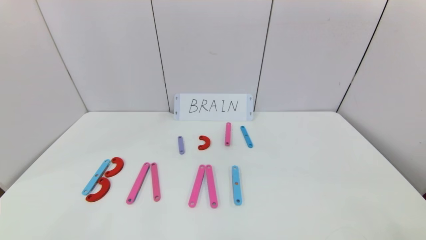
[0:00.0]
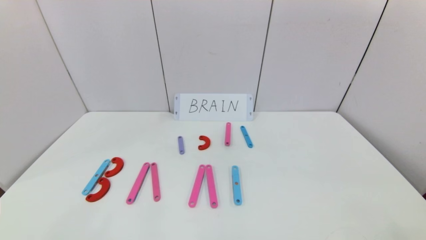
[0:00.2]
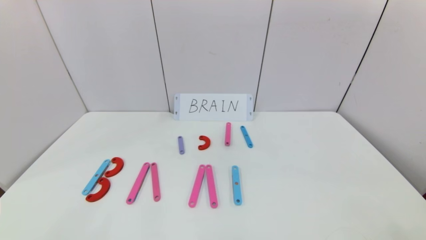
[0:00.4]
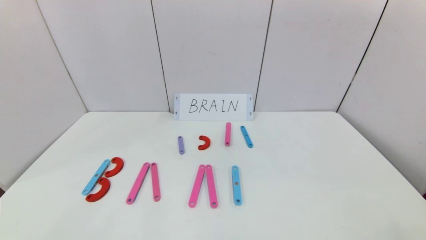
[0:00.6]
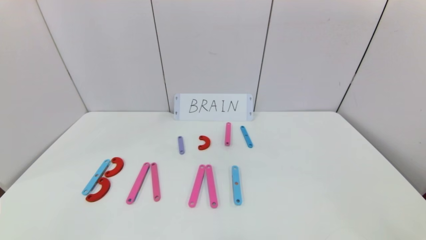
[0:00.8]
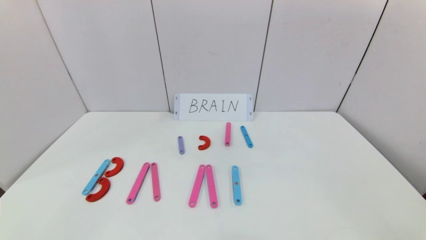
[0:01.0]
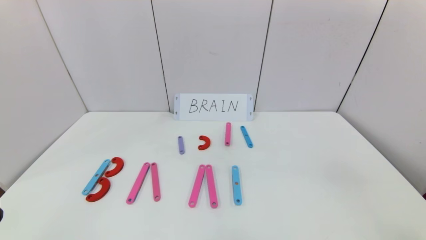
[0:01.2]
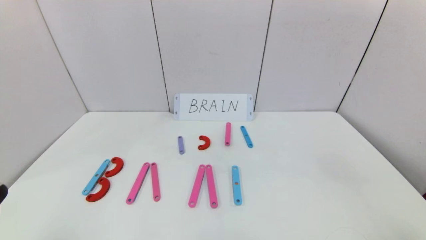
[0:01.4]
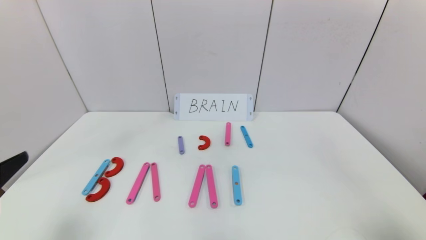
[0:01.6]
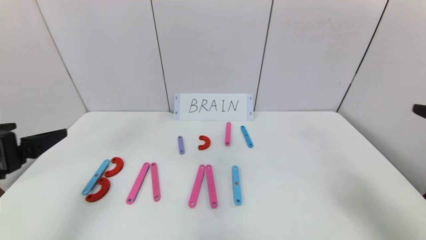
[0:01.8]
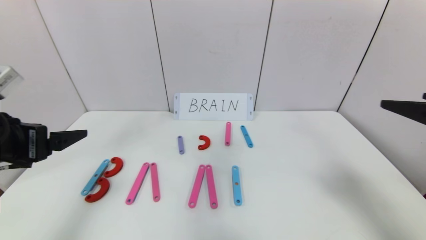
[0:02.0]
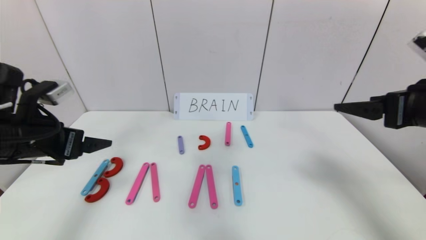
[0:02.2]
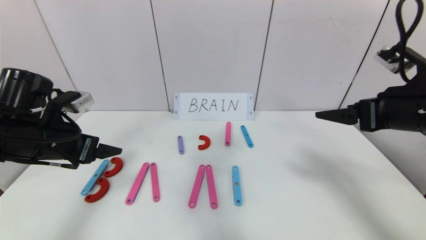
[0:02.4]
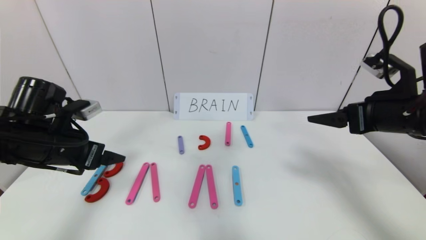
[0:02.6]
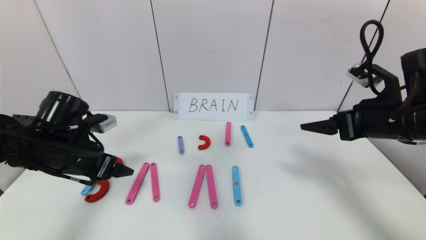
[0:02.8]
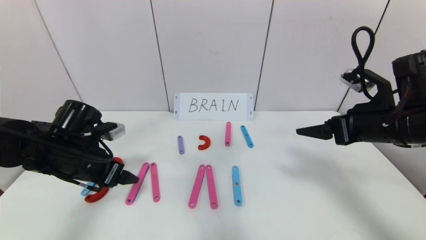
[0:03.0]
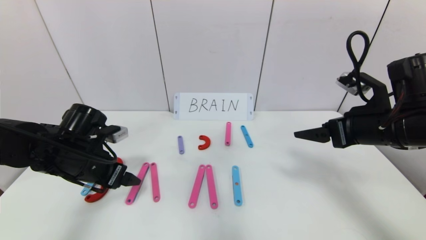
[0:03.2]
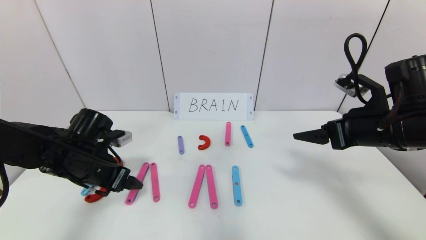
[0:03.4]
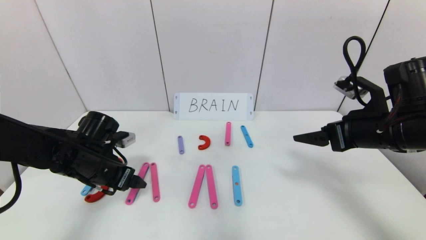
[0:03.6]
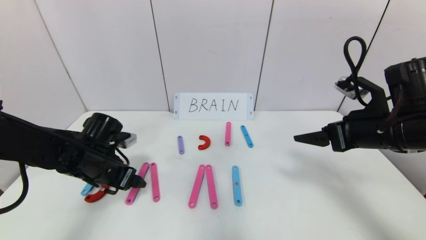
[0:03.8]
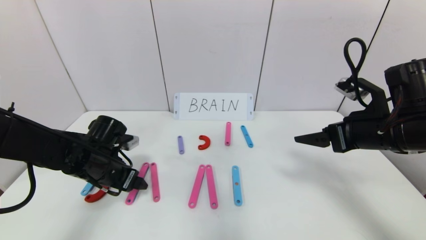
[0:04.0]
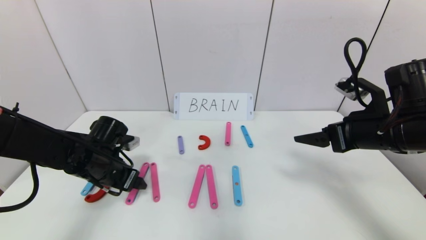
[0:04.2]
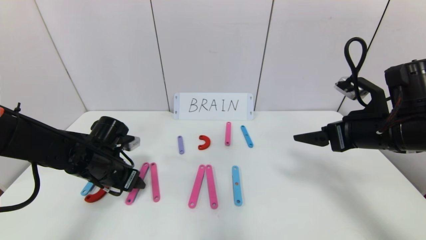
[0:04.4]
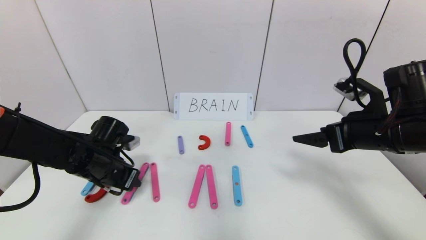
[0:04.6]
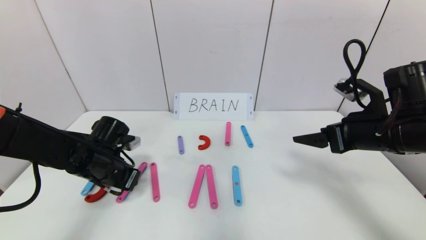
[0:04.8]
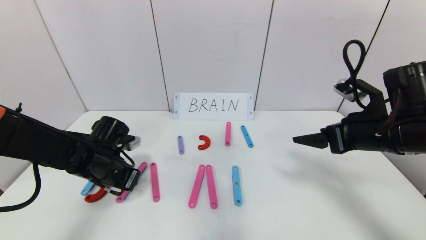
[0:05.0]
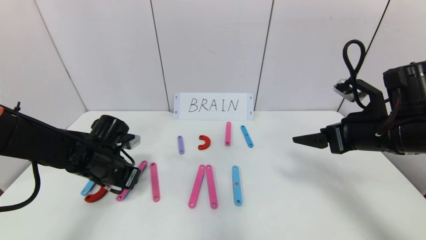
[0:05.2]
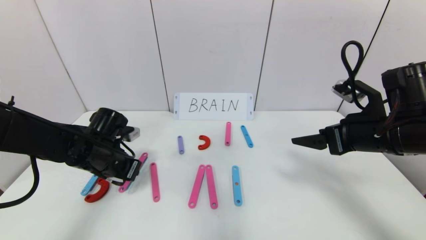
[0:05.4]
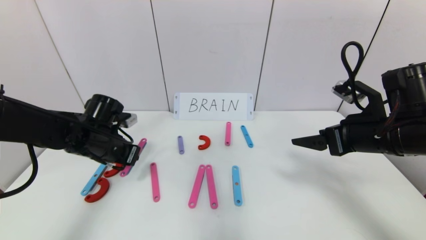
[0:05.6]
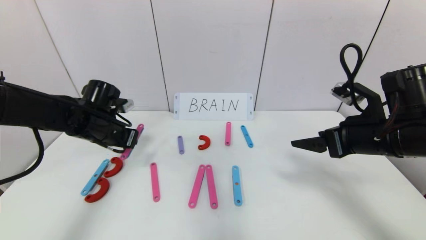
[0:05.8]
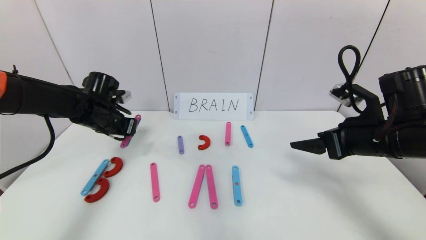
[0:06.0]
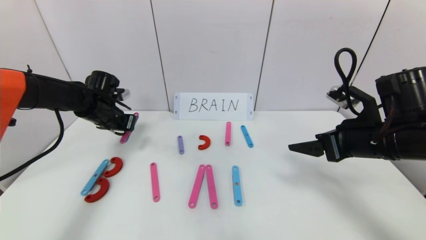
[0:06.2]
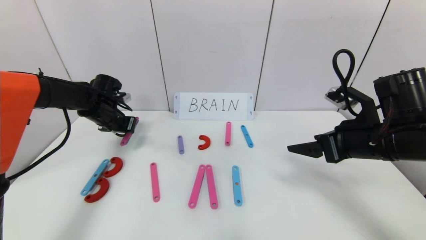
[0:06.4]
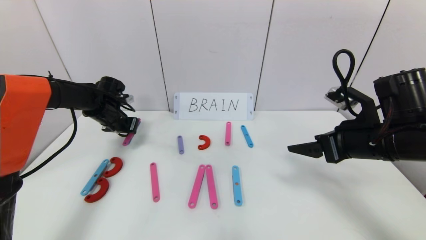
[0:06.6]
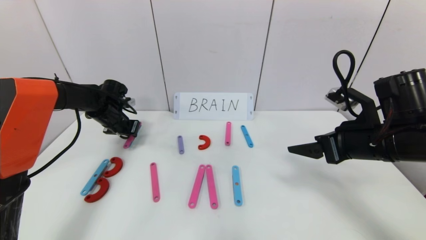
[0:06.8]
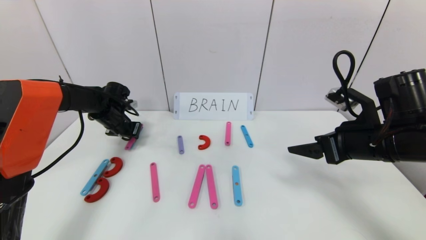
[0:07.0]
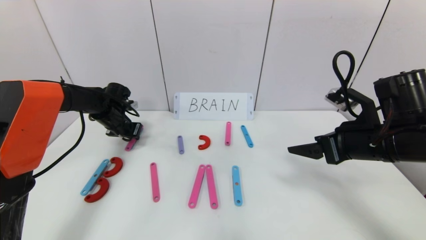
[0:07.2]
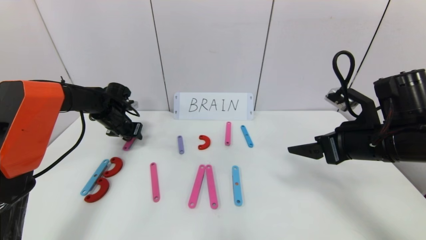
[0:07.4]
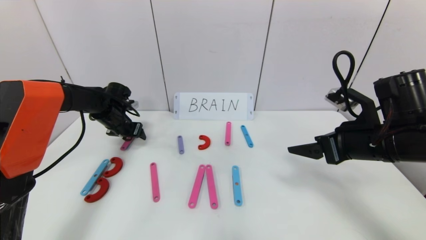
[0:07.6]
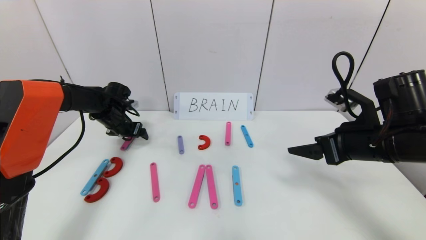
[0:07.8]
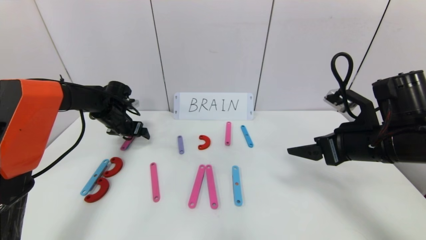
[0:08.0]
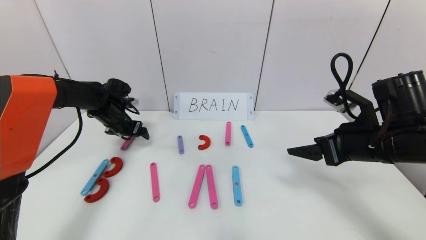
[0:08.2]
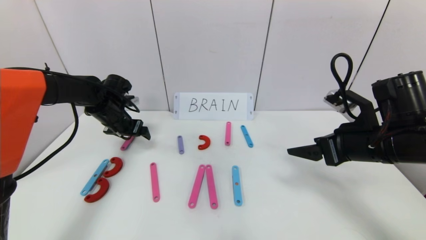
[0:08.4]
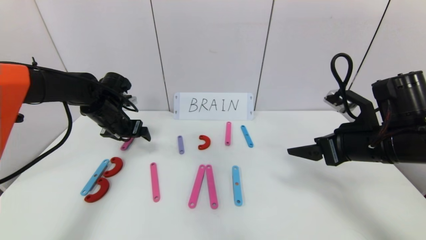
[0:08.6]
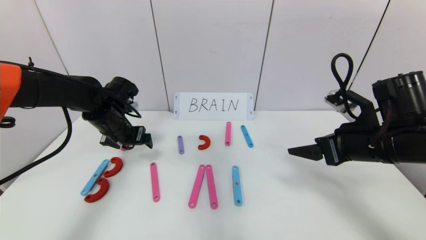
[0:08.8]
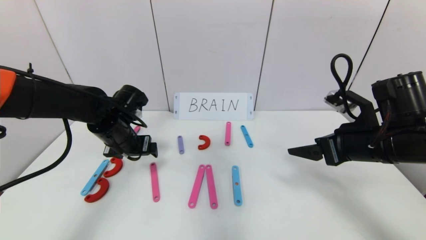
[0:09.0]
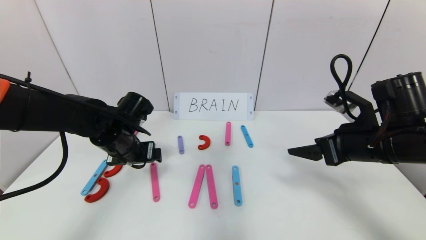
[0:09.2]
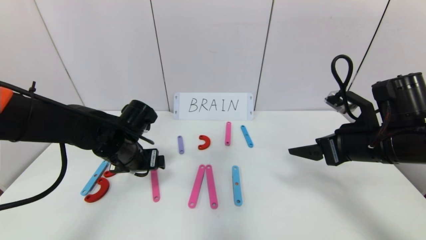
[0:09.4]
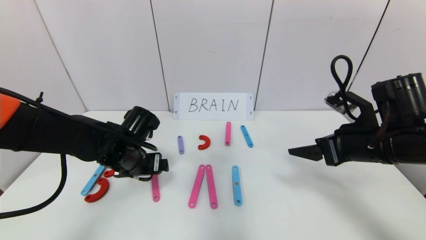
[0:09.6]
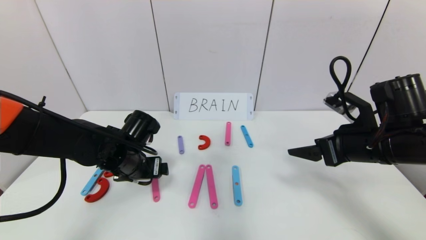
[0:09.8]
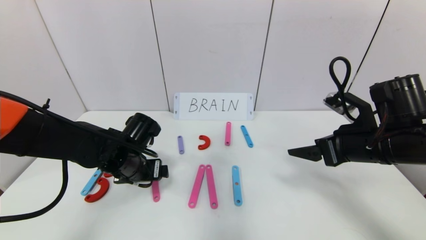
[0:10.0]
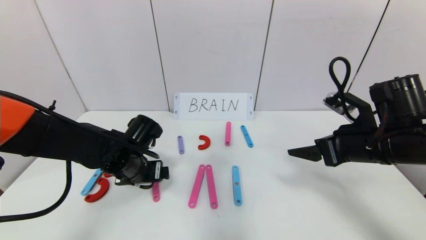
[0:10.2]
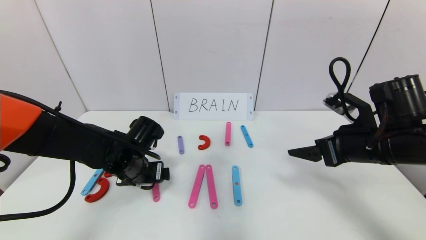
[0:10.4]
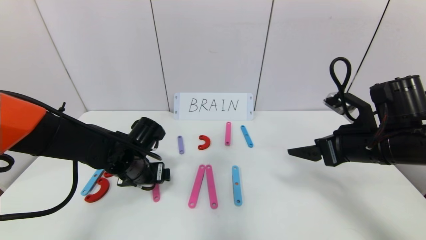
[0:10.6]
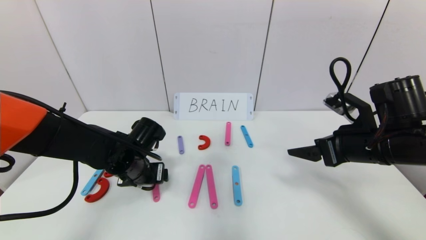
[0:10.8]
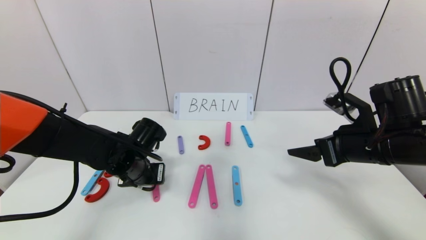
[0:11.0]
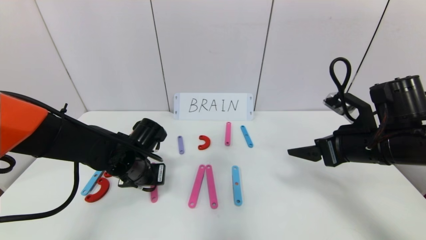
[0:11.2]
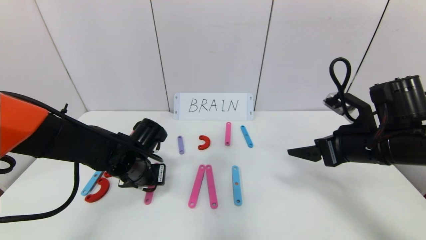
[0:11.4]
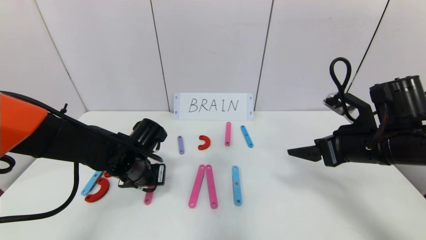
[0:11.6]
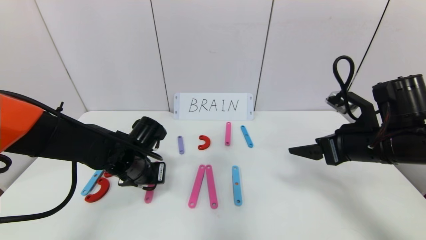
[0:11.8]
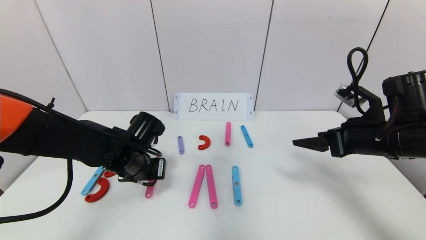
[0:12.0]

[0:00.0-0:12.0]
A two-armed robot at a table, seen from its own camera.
Task of the whole recording: rearrange the word baai as brain.
0:00.0 to 0:01.6: The left gripper shifts about 20 cm upward and forward.
0:01.6 to 0:03.0: The right gripper goes some 20 cm forward. The left gripper goes about 20 cm forward and downward.
0:03.0 to 0:04.4: The left gripper goes about 5 cm downward.
0:04.4 to 0:06.0: The left gripper travels forward and upward by about 10 cm, and closes up.
0:06.0 to 0:07.6: The left gripper travels forward by roughly 5 cm, and opens its fingers.
0:07.6 to 0:09.0: The left gripper is displaced backward and to the right by approximately 15 cm.
0:09.0 to 0:10.4: The left gripper shifts roughly 5 cm downward.
0:10.4 to 0:12.0: The left gripper closes.

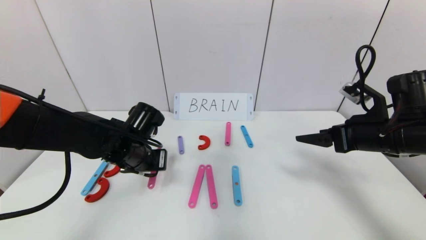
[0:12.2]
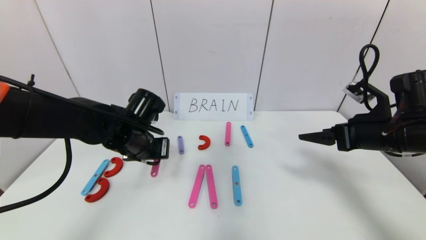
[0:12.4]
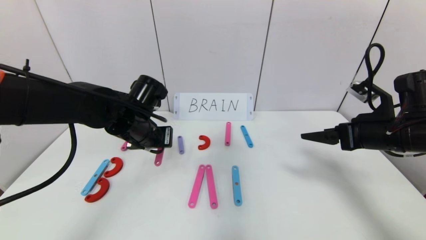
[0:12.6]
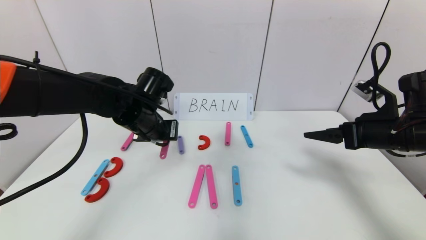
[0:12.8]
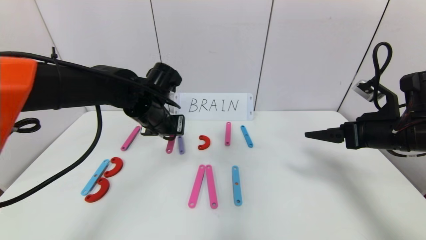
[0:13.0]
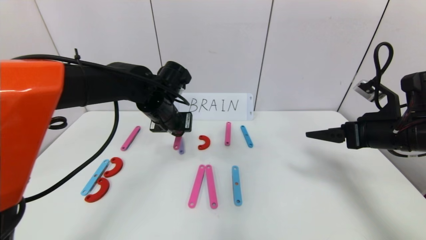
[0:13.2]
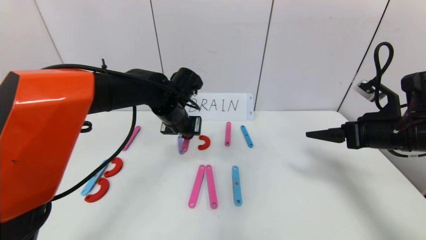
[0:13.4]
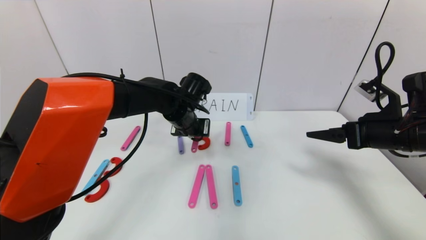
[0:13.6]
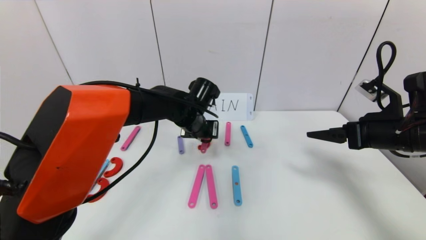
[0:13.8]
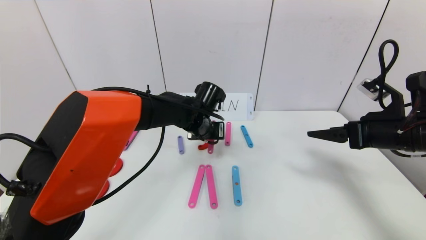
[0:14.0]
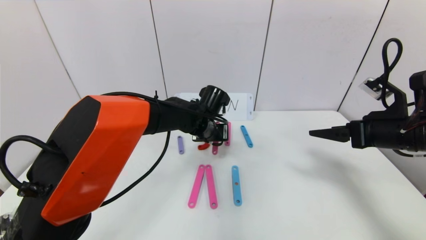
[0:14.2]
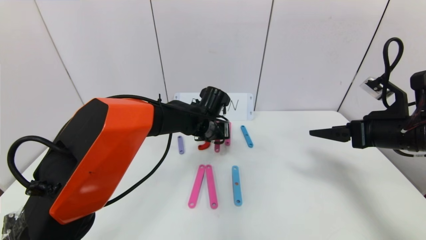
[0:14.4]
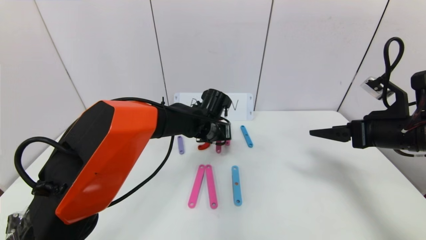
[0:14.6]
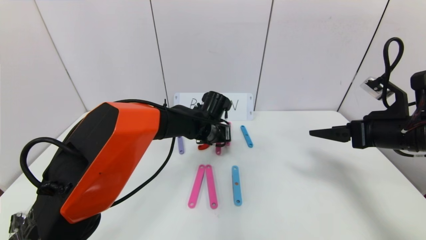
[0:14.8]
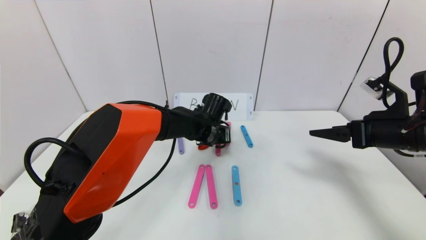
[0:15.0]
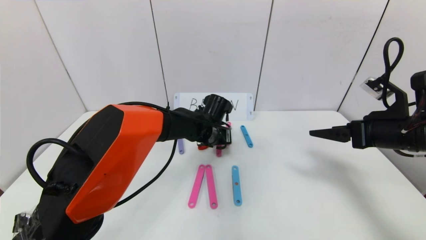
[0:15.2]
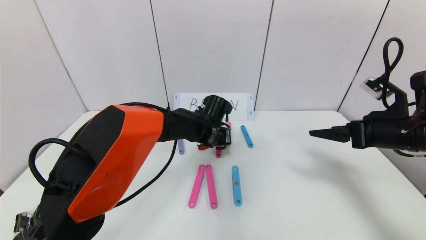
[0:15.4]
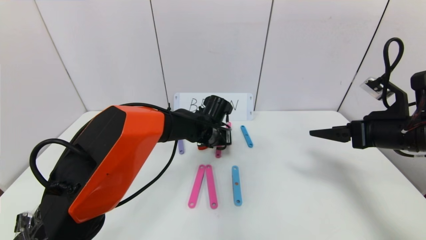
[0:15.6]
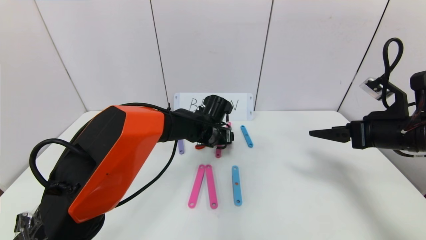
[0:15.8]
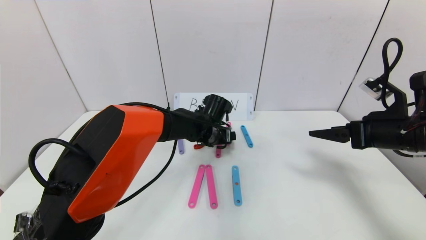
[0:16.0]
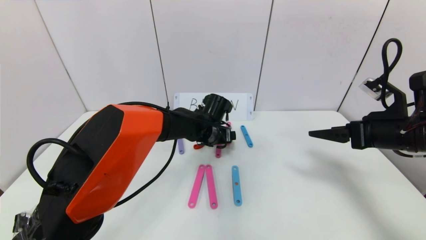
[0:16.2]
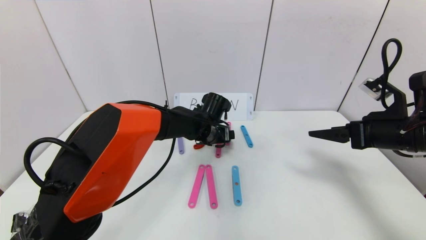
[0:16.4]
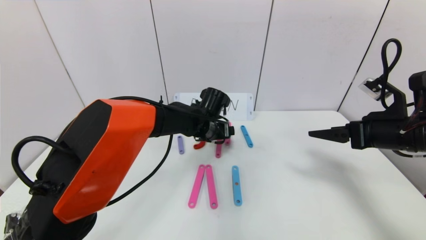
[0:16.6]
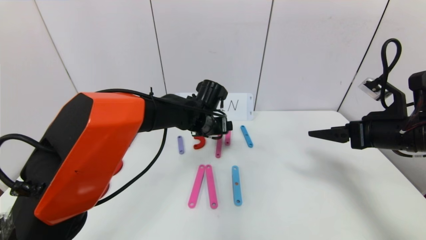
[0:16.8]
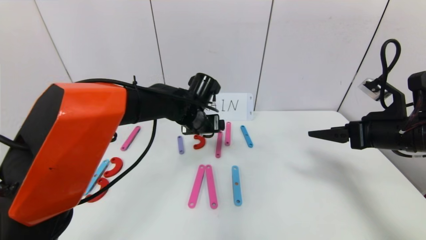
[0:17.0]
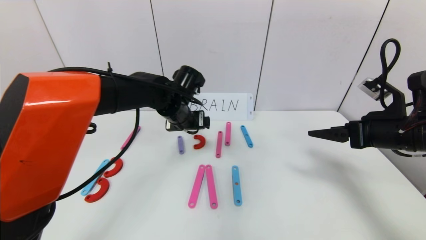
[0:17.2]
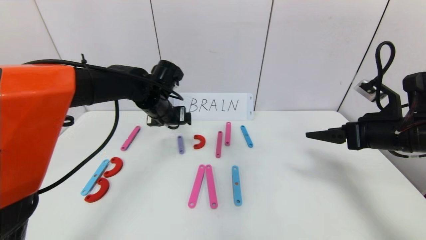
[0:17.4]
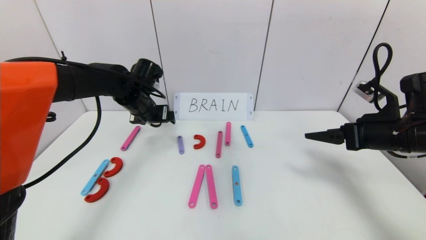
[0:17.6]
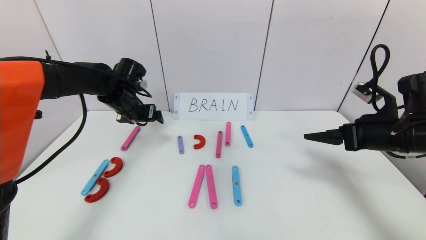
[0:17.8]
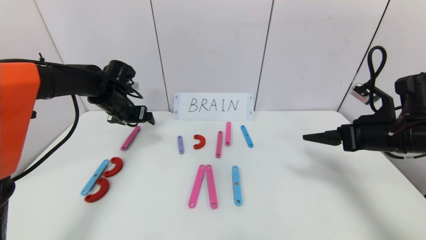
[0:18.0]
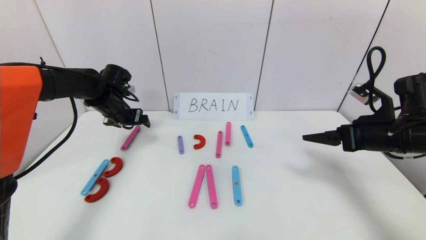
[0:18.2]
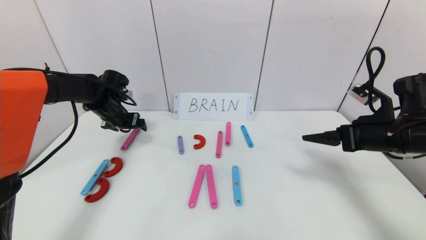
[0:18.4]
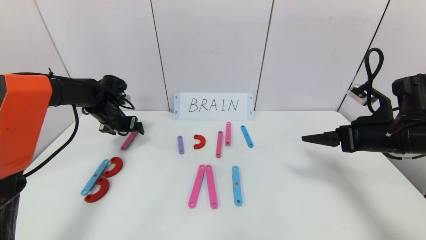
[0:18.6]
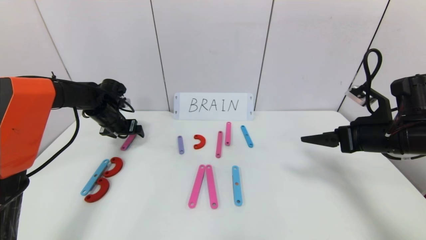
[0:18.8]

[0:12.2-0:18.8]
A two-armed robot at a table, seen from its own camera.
Task of the whole recording: rearrange the word baai as brain.
Step, 0:12.2 to 0:15.6: Disassemble the second character A.
0:12.2 to 0:13.8: The left gripper goes roughly 15 cm to the right and forward.
0:13.8 to 0:15.4: The left gripper shifts by roughly 5 cm.
0:15.4 to 0:17.2: The left gripper is displaced to the left and upward by some 10 cm, and opens.
0:17.2 to 0:18.8: The left gripper moves to the left, approximately 20 cm.
